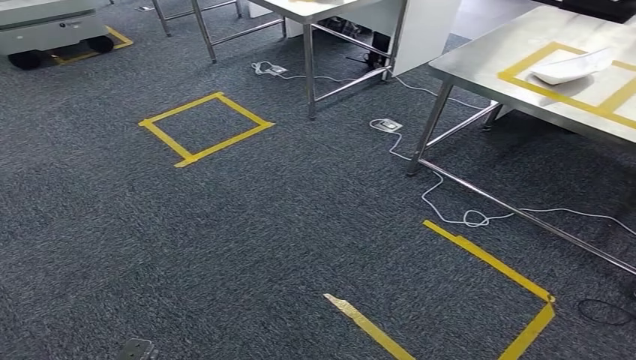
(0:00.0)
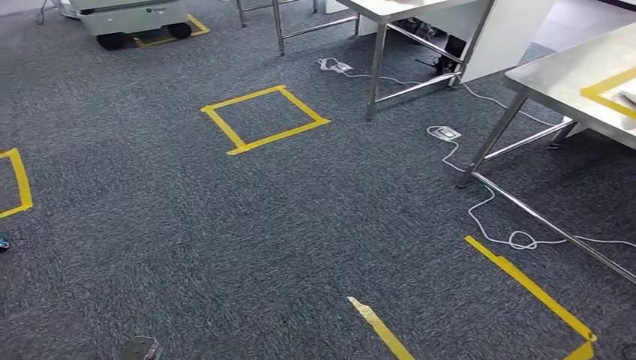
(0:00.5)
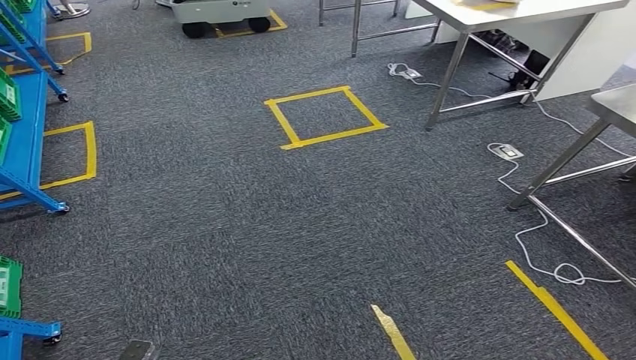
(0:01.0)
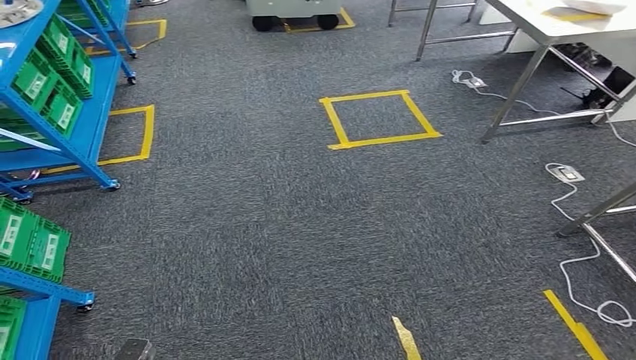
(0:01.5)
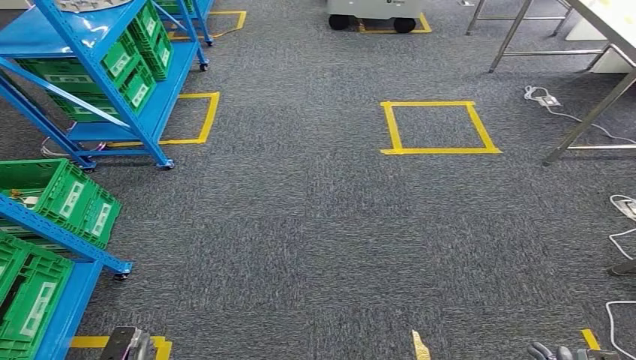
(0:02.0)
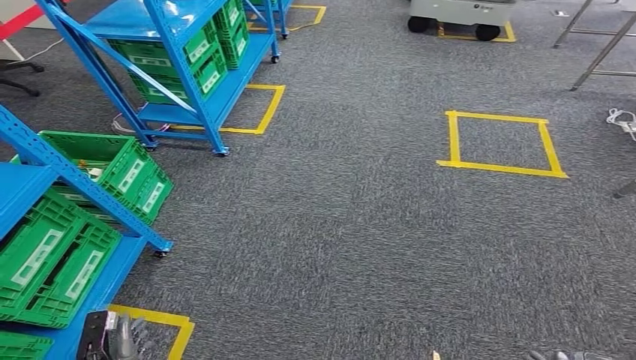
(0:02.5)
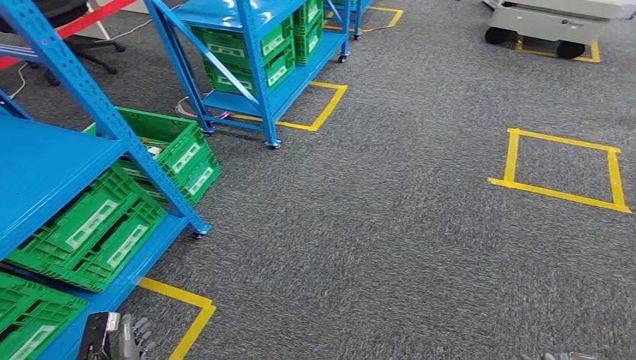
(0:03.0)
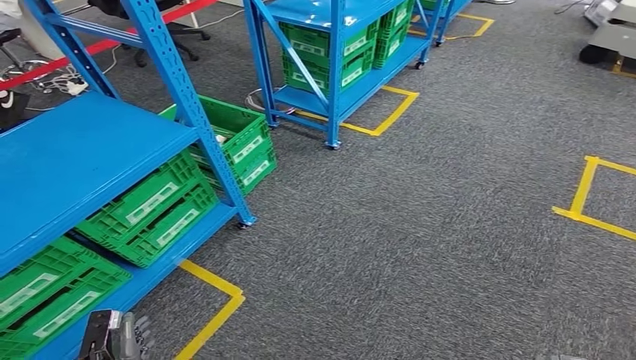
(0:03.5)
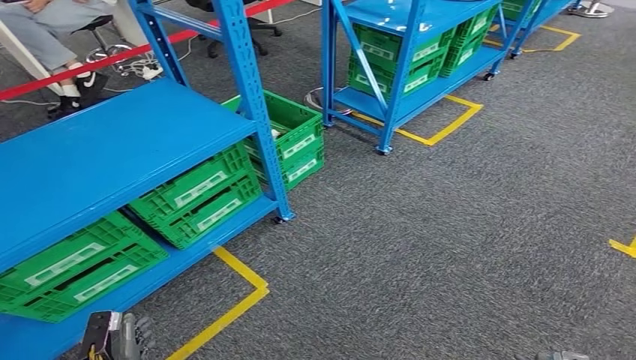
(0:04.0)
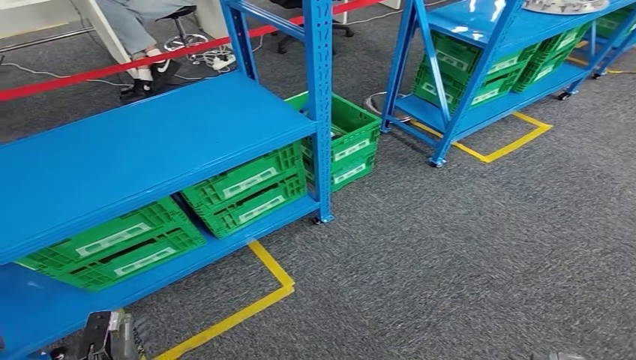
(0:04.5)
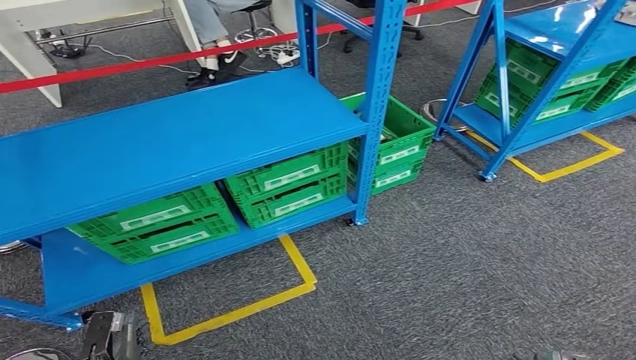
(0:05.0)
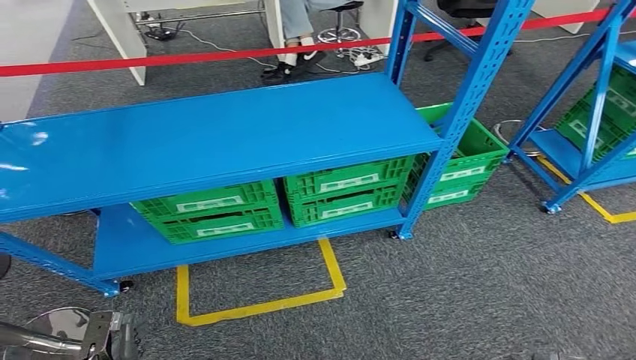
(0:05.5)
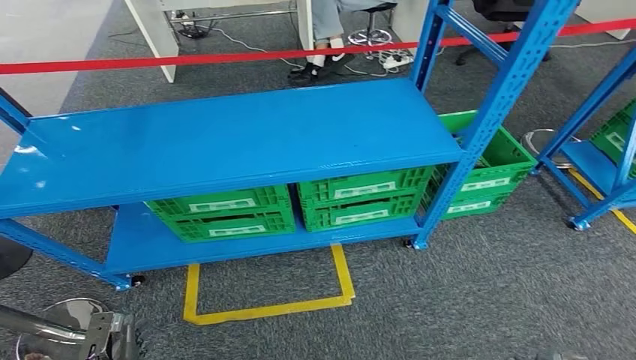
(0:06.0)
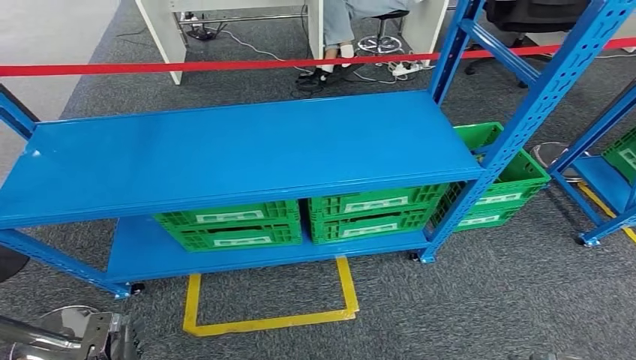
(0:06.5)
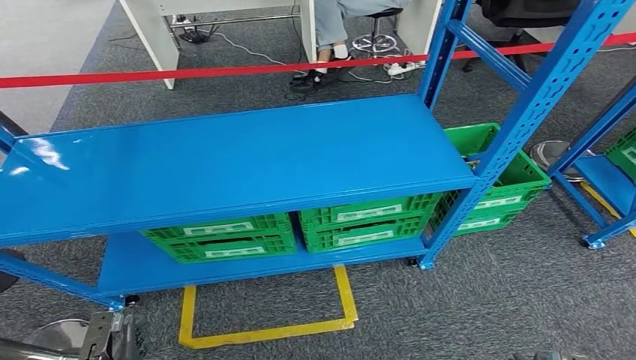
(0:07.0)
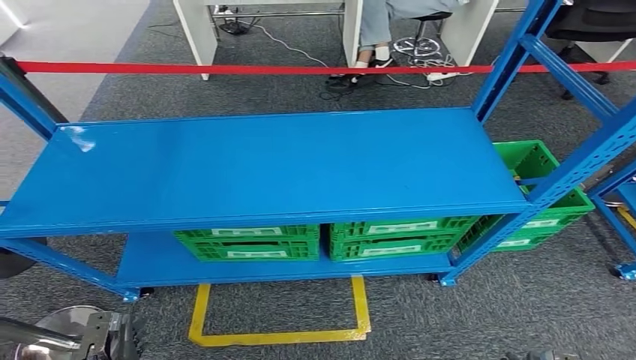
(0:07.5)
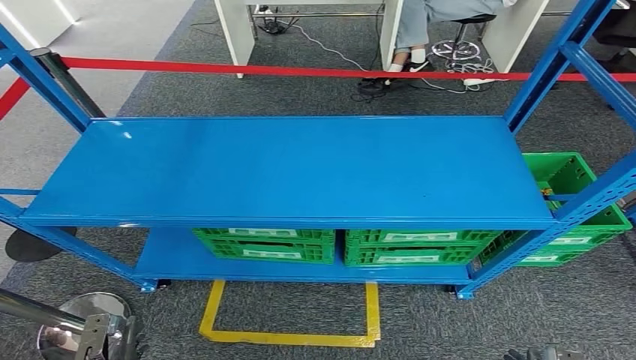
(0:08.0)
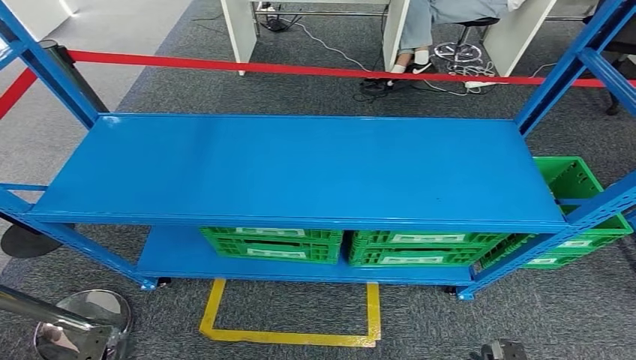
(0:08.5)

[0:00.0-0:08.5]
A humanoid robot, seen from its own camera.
Step, 0:00.0 to 0:02.0: Insert the small component into the corresponding slot on the workbench.
Step, 0:02.5 to 0:08.5: Return to the initial position at the workbench.
